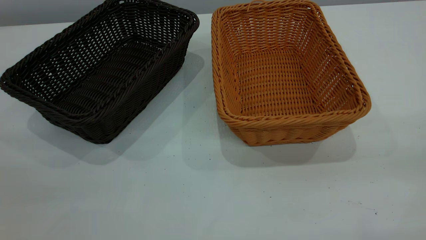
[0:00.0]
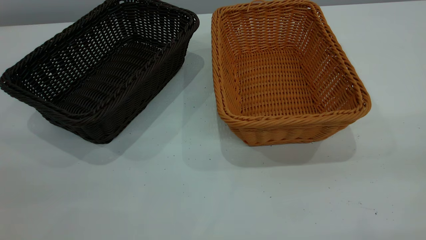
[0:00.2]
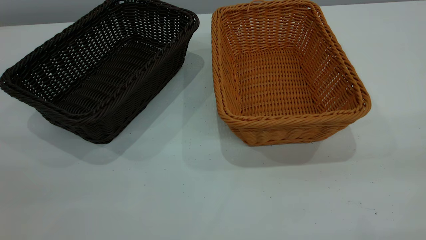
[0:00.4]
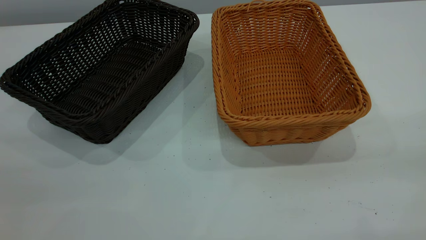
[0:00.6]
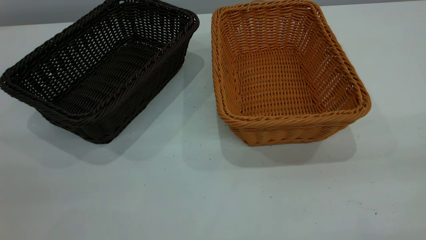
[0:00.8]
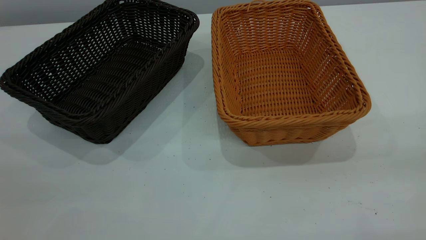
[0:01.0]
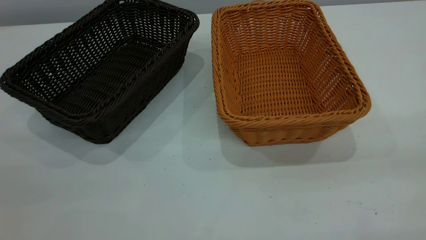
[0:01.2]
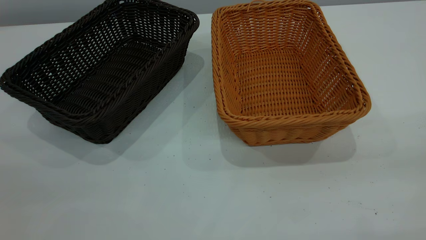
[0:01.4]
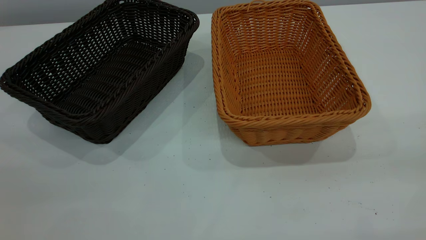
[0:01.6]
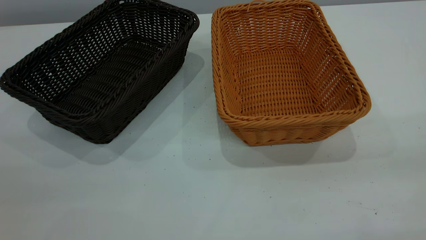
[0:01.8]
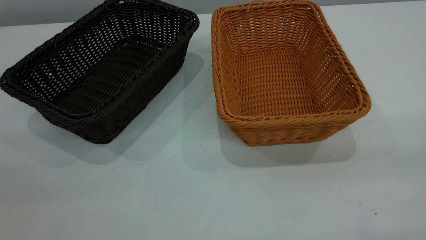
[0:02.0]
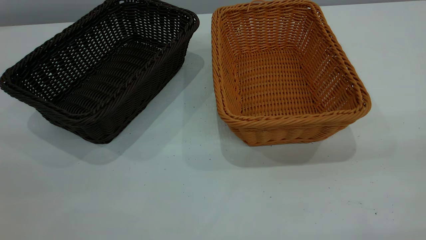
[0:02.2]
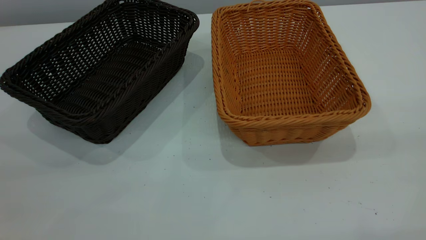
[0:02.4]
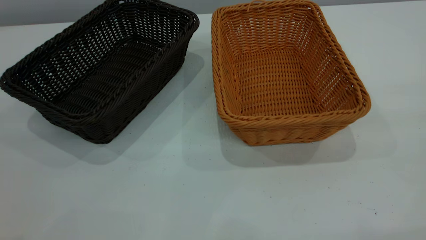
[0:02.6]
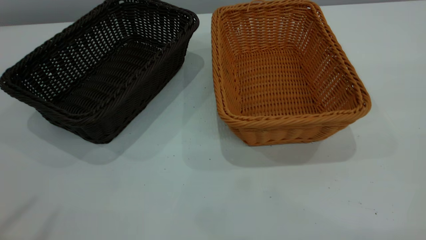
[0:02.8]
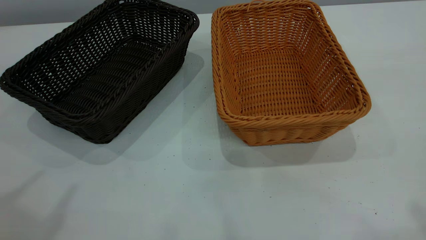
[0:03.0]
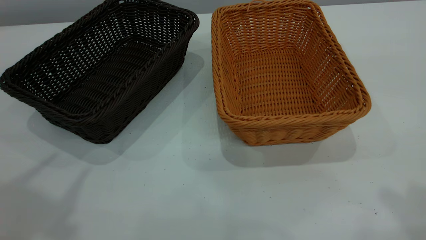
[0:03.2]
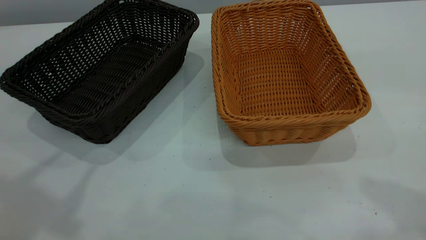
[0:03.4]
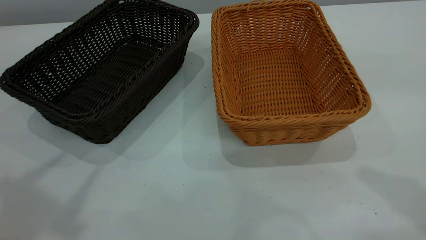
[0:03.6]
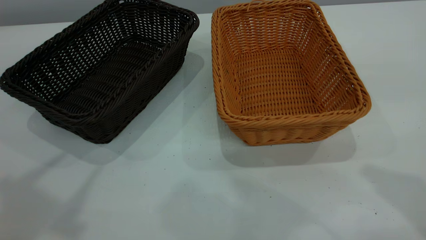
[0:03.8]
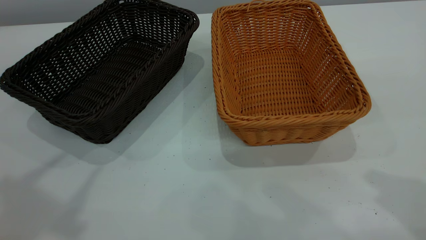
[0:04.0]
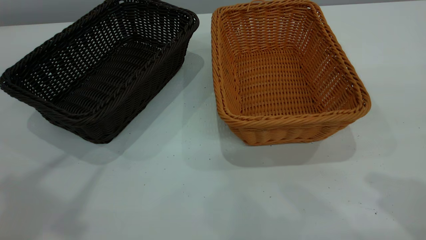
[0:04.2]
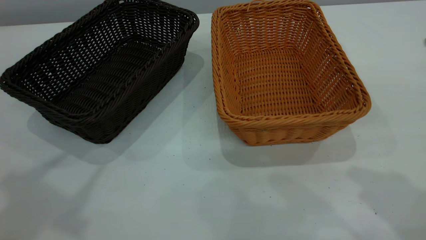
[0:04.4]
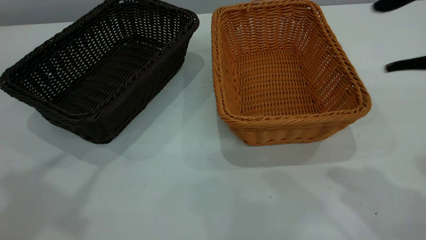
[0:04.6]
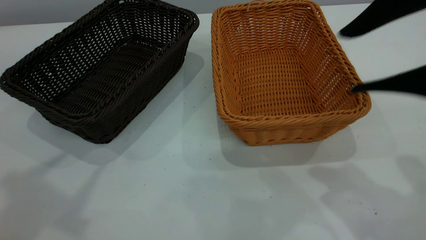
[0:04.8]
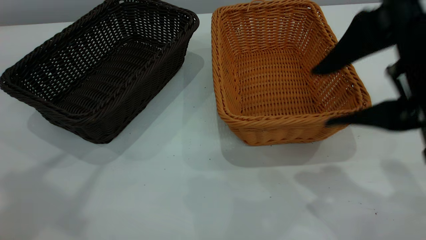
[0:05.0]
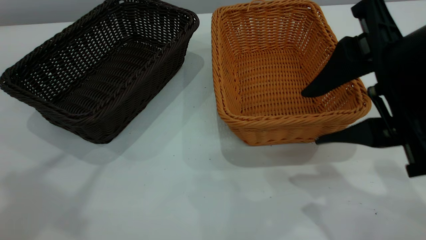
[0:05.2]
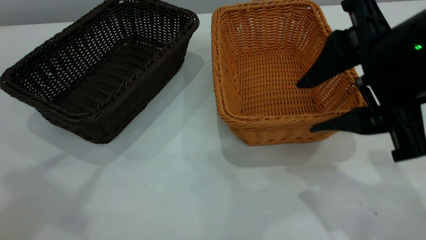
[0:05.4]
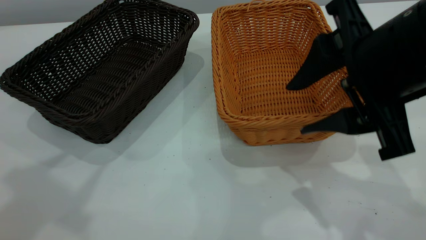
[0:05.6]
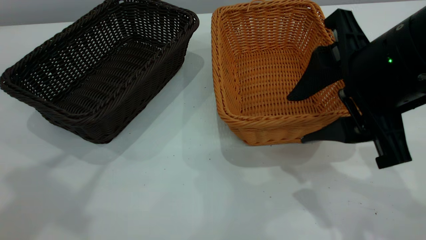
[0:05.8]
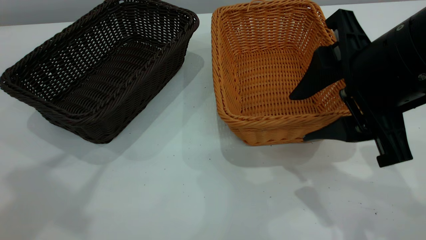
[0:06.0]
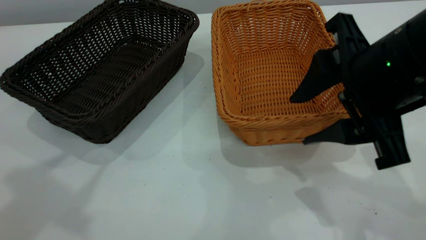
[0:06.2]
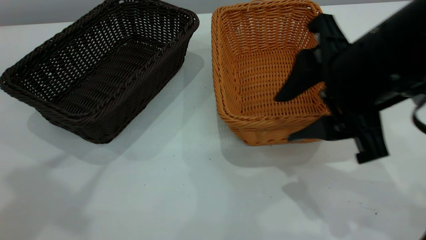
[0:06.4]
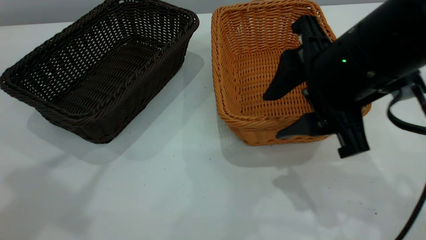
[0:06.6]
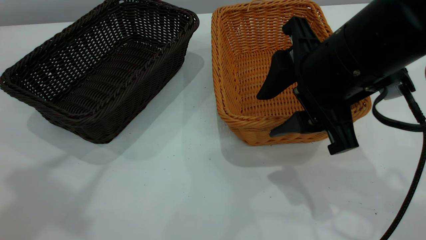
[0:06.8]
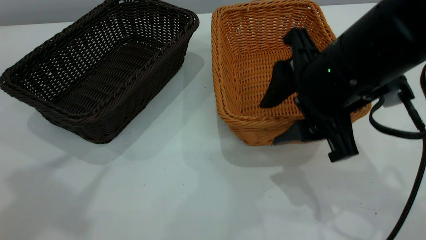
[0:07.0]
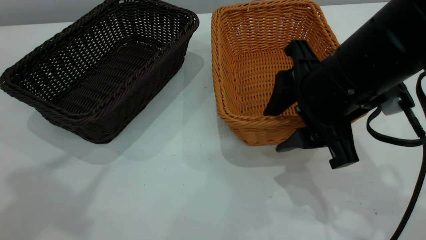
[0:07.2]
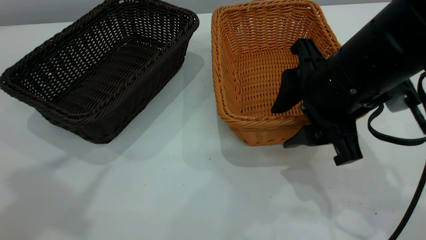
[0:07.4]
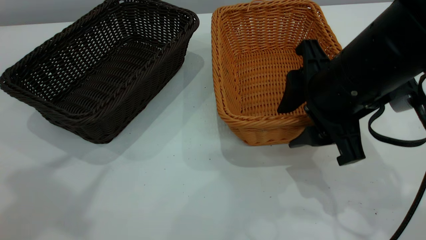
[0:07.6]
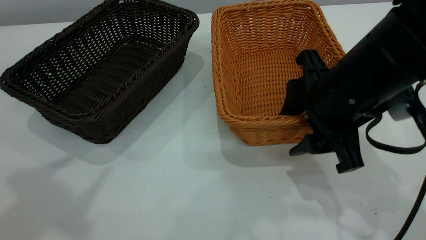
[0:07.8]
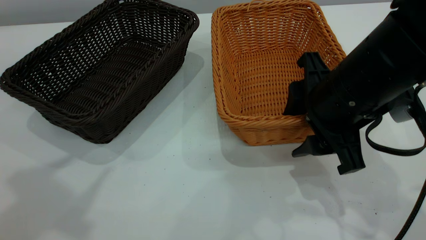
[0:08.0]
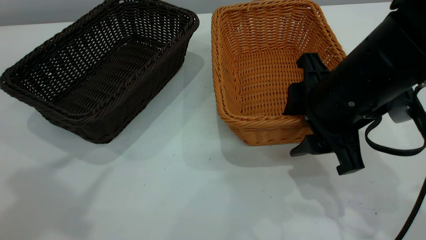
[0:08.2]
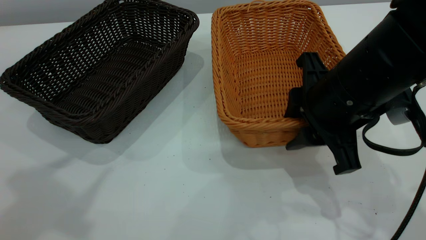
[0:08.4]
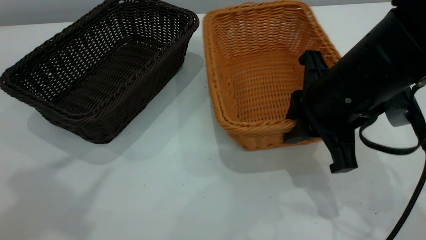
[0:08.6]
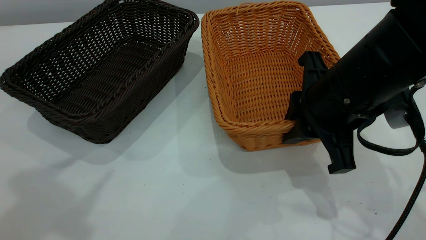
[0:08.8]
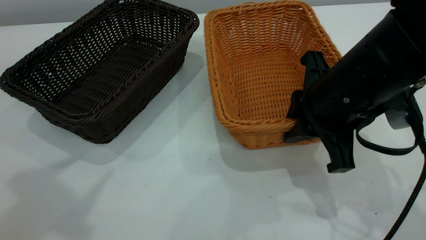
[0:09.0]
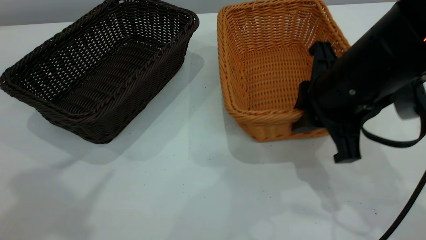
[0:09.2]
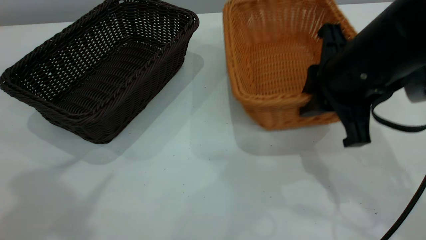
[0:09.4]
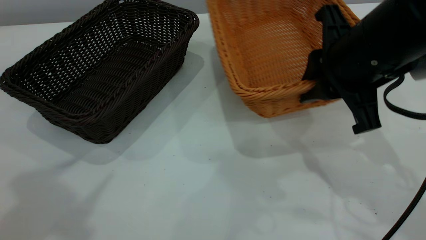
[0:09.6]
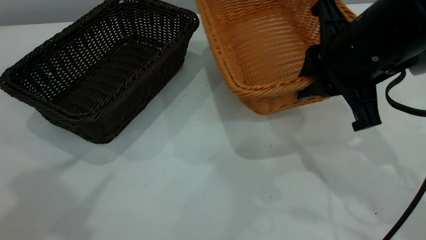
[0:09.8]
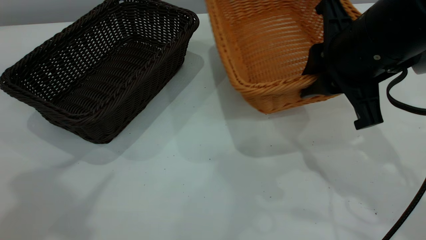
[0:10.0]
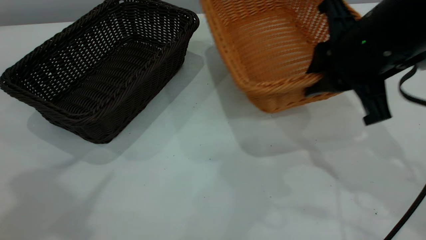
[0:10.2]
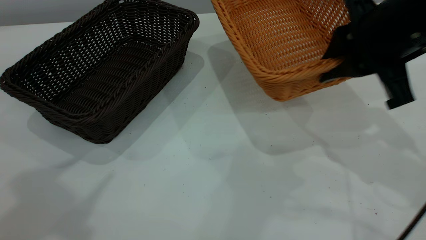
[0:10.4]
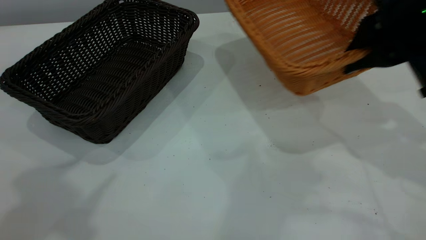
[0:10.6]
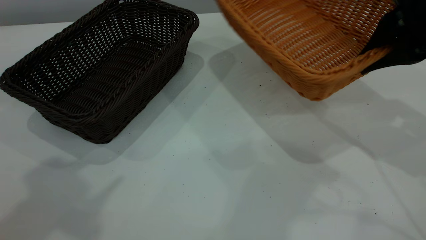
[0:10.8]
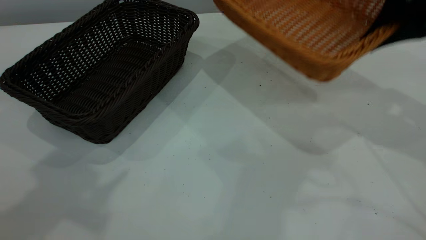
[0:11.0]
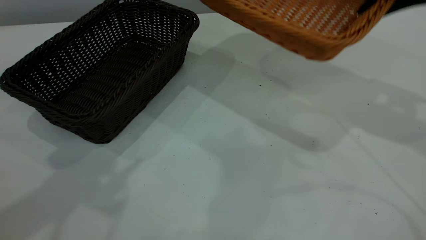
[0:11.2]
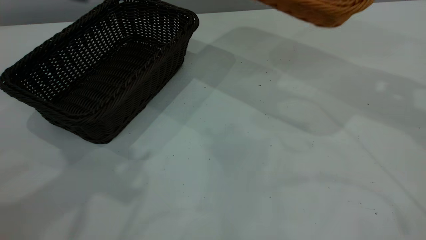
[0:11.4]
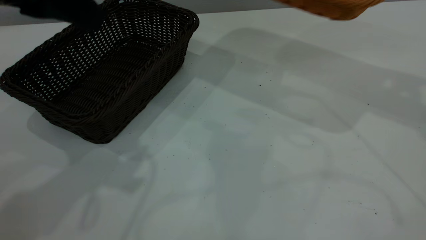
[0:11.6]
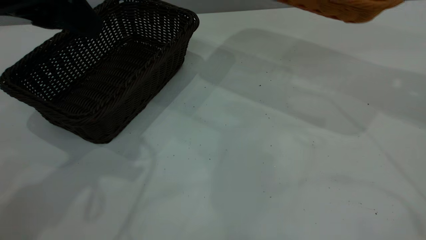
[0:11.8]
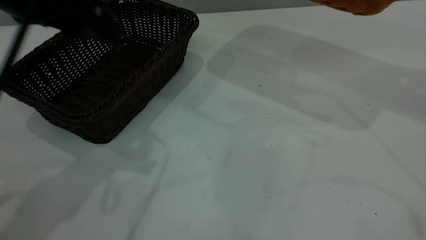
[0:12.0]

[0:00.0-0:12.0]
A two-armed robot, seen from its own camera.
Task of the whole recording: the left gripper grasp the black basket and place it in the center of the table, the right gripper grasp the brown basket and place it inside the black one.
Step, 0:04.4 to 0:08.6: Grasp the light basket with right gripper.
0:00.0 to 0:01.6: The two grippers keep their place.
0:04.4 to 0:06.0: The right gripper travels downward and to the left by approximately 10 cm.
0:06.0 to 0:07.6: The right gripper changes place by about 5 cm.
0:07.6 to 0:09.0: The right gripper closes up.
0:09.0 to 0:10.4: The right gripper is displaced upward and to the right by some 10 cm.
0:10.4 to 0:12.0: The left gripper goes about 20 cm downward, forward and to the right, while the right gripper is displaced upward, to the right and forward by approximately 15 cm.

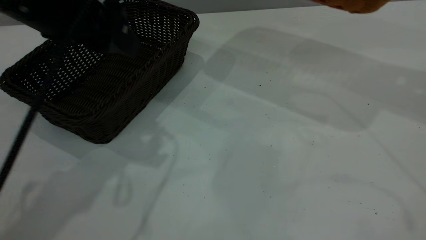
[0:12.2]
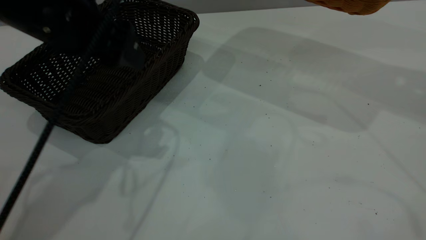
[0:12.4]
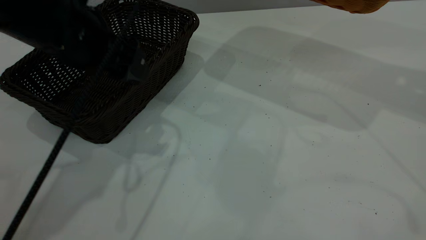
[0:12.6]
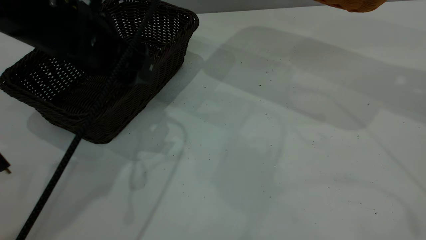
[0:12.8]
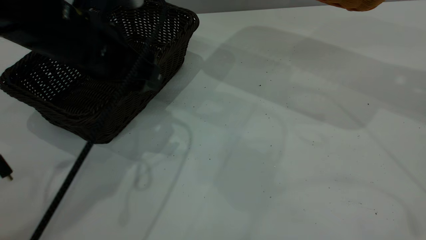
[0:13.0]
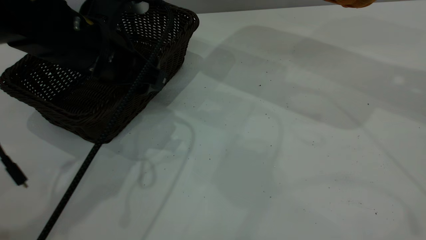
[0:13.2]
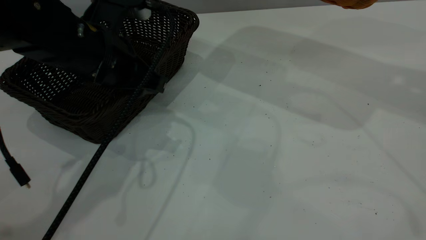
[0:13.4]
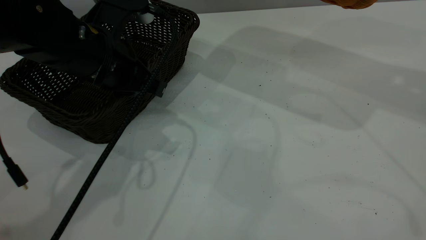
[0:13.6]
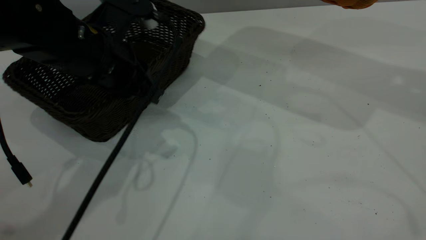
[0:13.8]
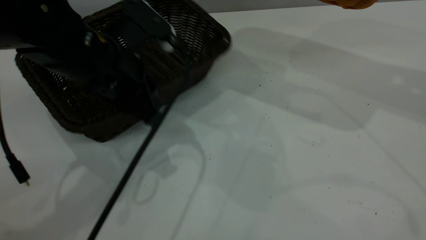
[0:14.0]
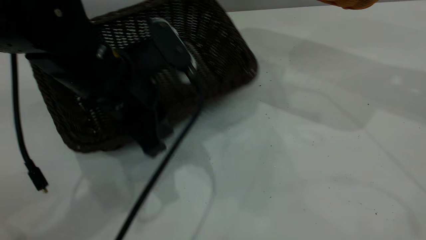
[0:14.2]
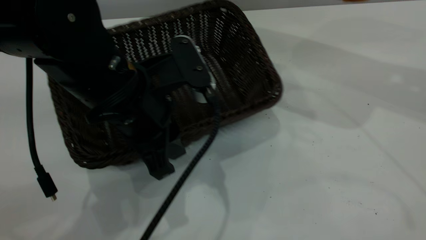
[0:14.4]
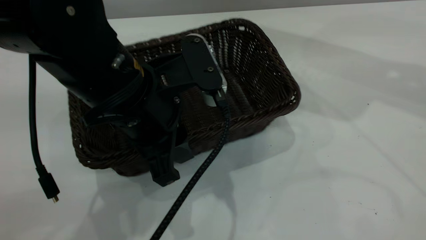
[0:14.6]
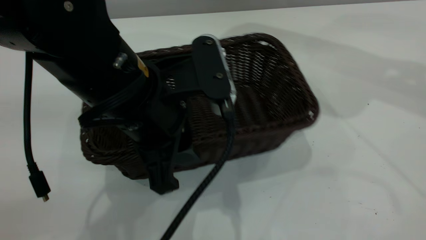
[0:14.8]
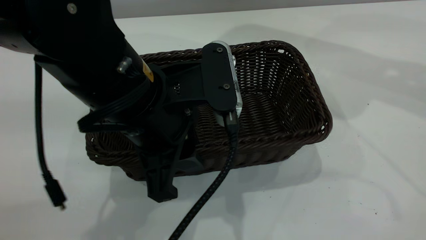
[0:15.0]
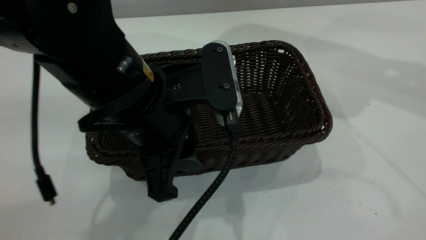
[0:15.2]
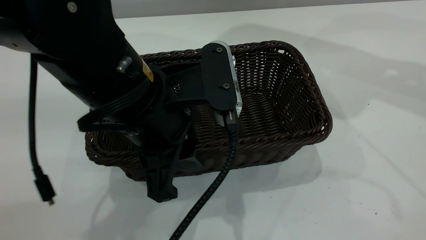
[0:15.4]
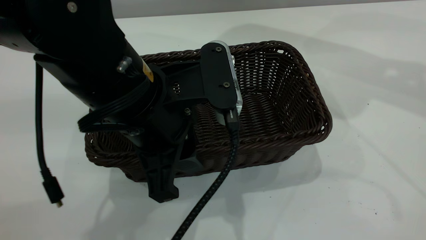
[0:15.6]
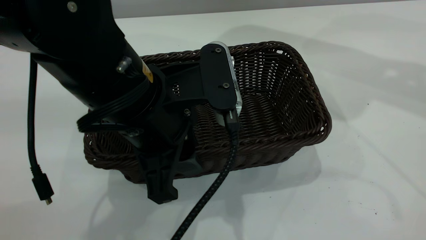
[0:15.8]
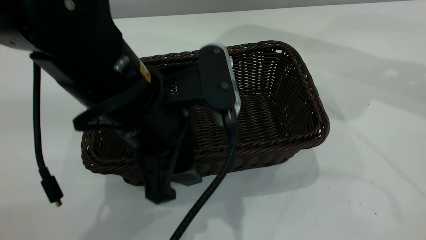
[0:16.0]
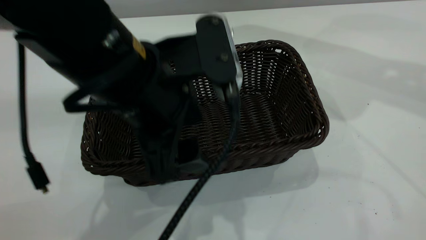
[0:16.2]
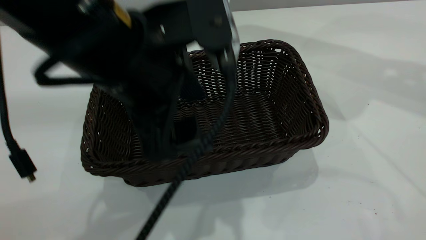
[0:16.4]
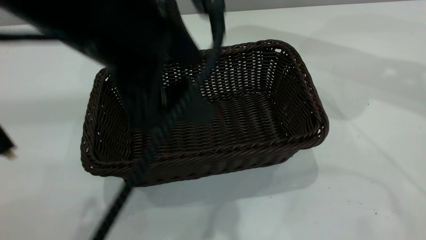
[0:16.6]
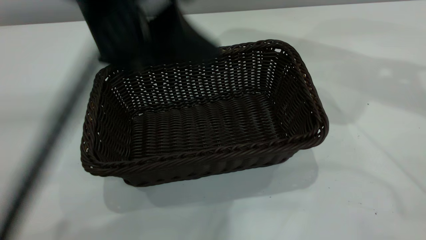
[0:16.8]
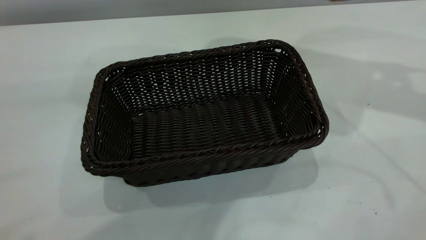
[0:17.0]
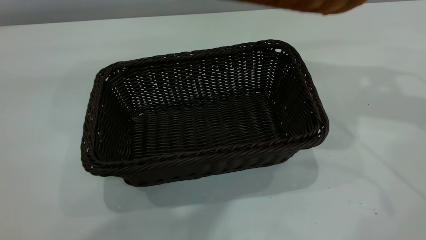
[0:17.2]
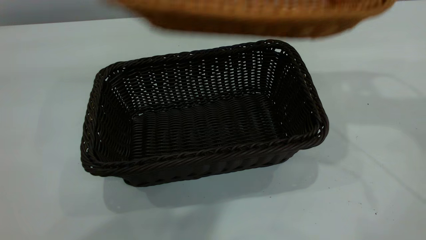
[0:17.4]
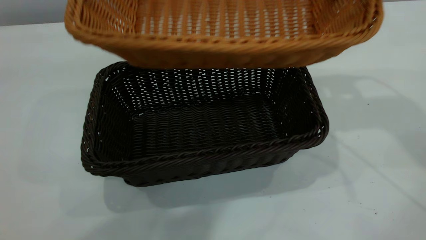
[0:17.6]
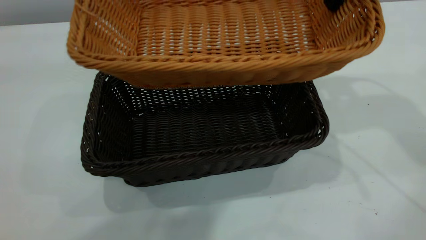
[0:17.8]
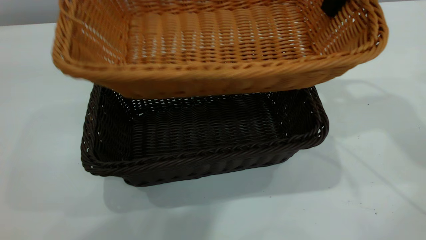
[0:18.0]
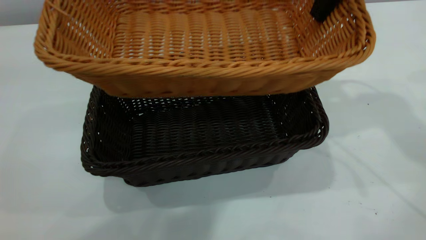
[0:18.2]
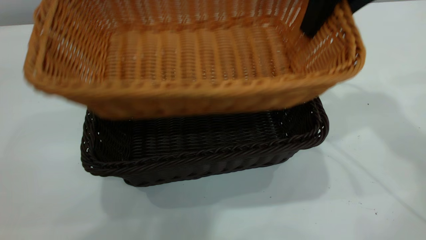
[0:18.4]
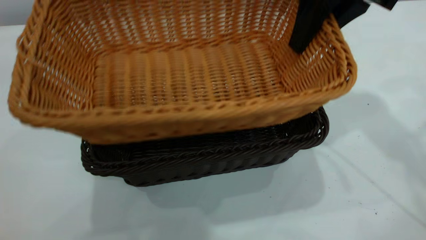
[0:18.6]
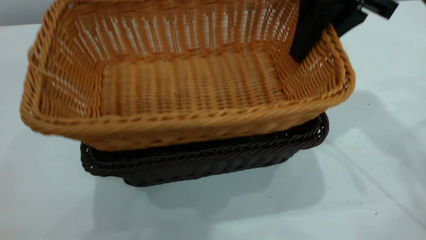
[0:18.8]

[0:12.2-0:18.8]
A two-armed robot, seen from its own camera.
Task of the whole recording: the left gripper grasp the black basket and place it in the center of the table, the right gripper grasp the brown basket and place it inside the black one.
Step, 0:13.8 to 0:16.4: Place the dark basket in the center of the table with left gripper.
0:12.2 to 0:13.8: The left gripper shifts approximately 10 cm downward, and closes up.
0:13.8 to 0:15.4: The left gripper is displaced backward and to the right by approximately 10 cm.
0:15.4 to 0:17.2: The left gripper moves upward, approximately 30 cm, and opens up.
0:17.2 to 0:18.8: The right gripper is displaced downward and to the left by about 15 cm.
